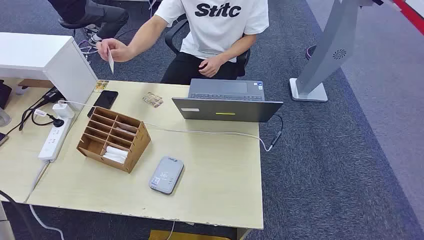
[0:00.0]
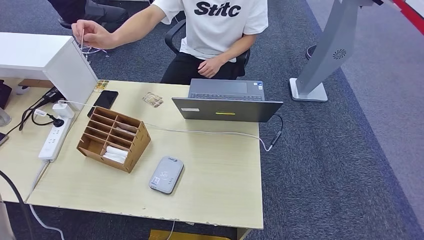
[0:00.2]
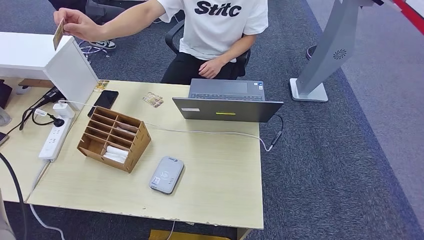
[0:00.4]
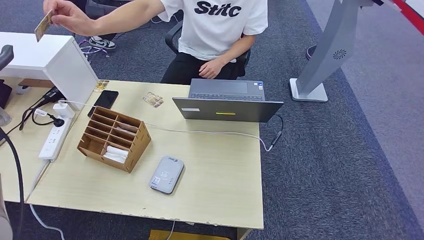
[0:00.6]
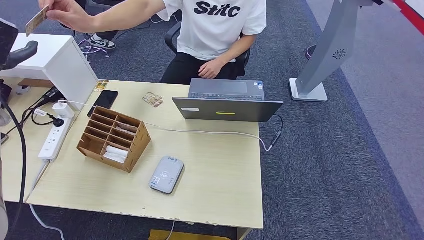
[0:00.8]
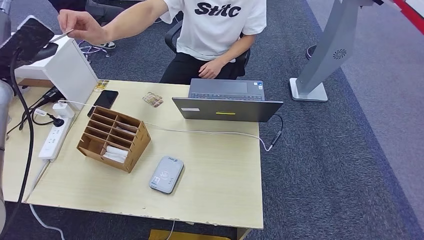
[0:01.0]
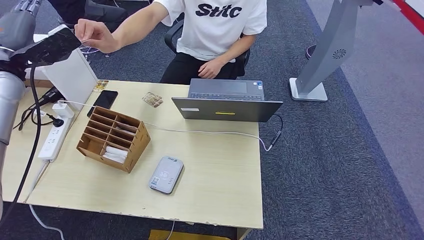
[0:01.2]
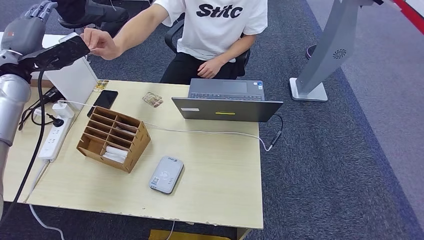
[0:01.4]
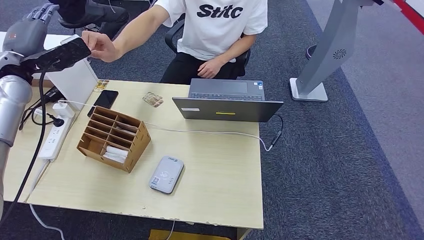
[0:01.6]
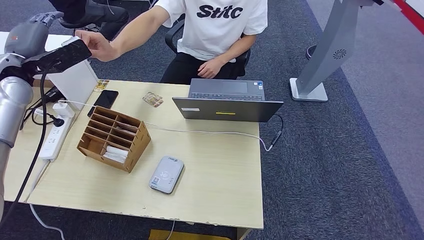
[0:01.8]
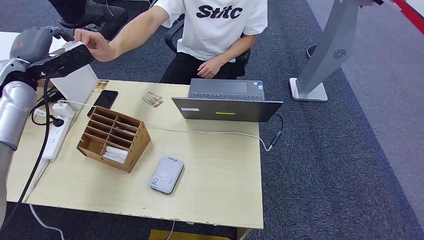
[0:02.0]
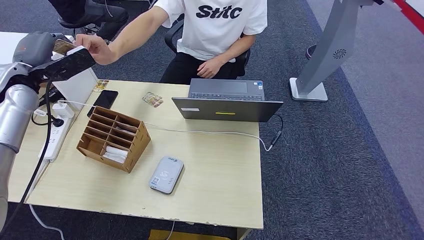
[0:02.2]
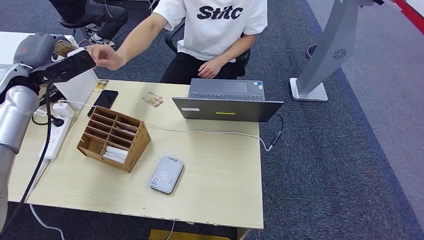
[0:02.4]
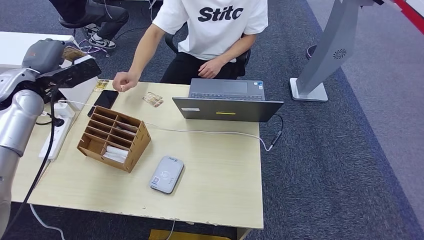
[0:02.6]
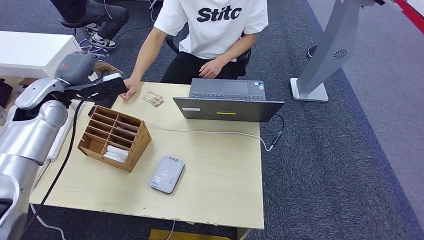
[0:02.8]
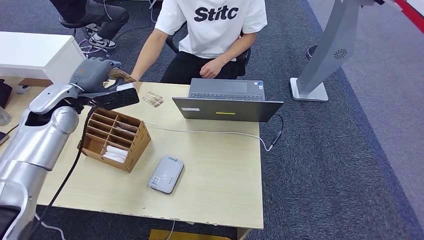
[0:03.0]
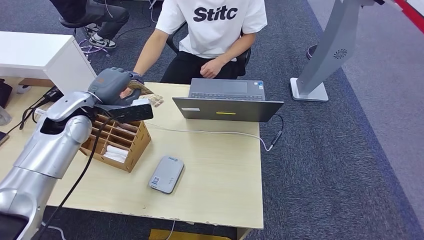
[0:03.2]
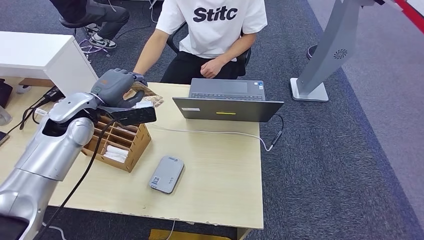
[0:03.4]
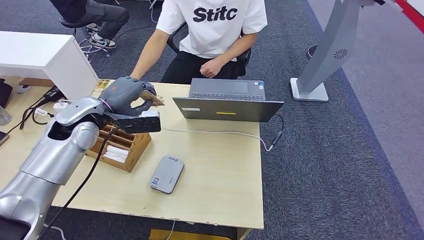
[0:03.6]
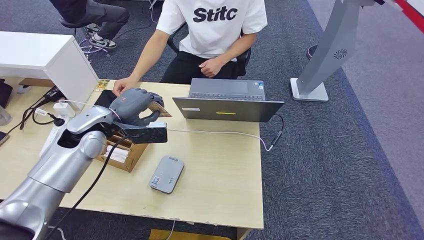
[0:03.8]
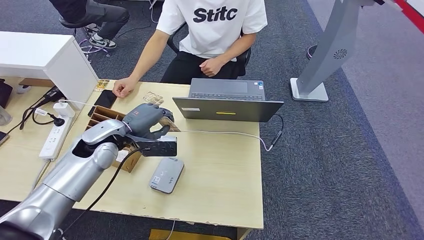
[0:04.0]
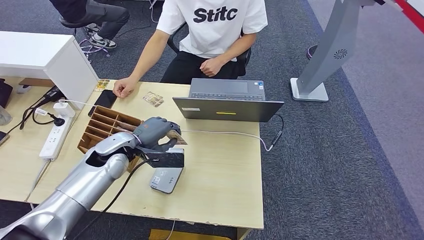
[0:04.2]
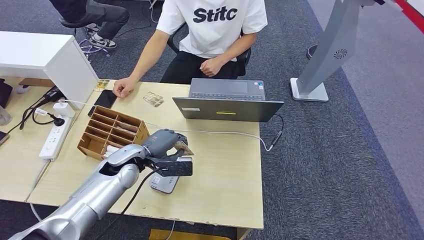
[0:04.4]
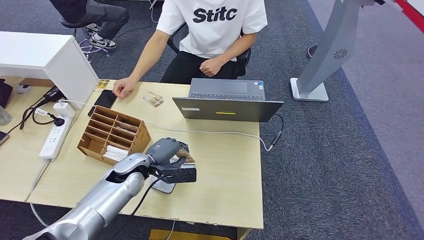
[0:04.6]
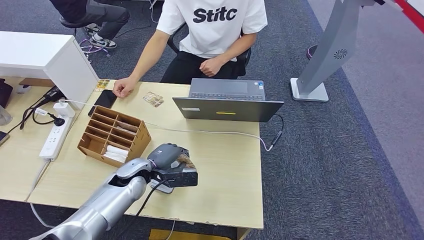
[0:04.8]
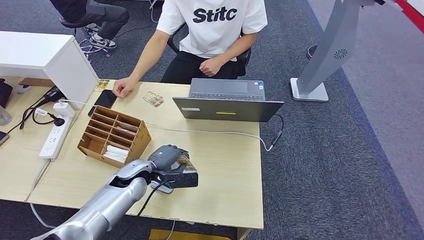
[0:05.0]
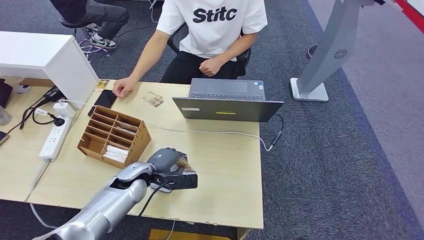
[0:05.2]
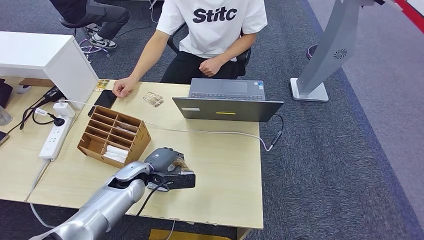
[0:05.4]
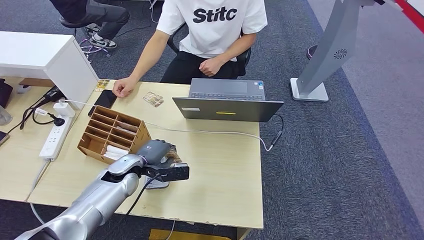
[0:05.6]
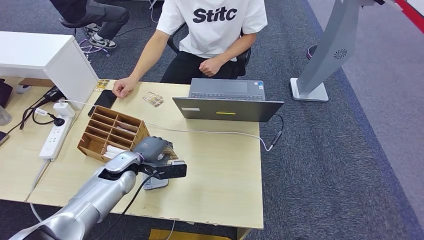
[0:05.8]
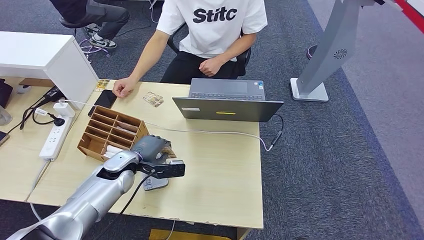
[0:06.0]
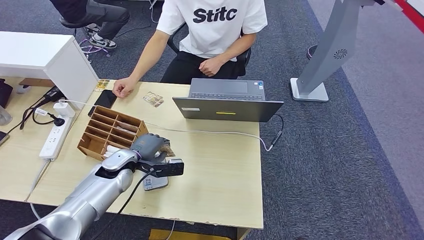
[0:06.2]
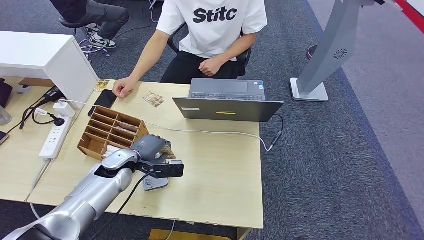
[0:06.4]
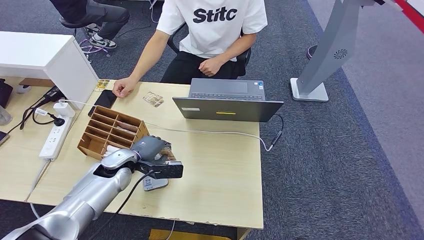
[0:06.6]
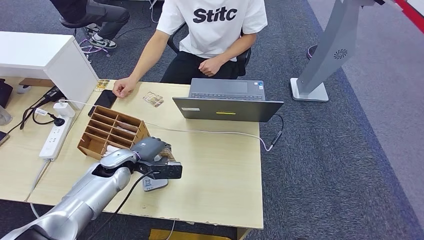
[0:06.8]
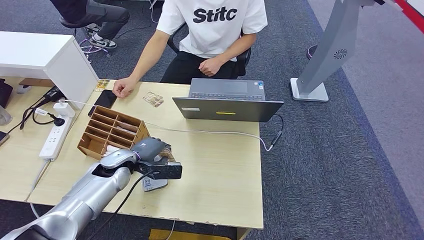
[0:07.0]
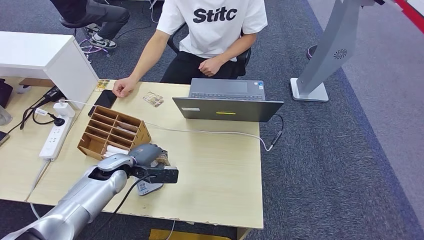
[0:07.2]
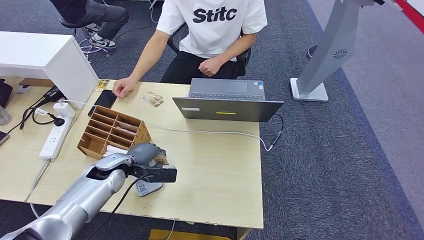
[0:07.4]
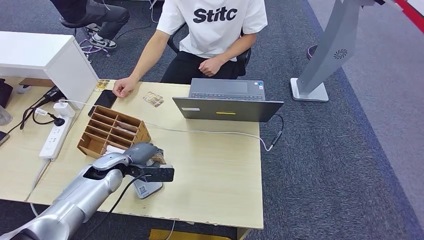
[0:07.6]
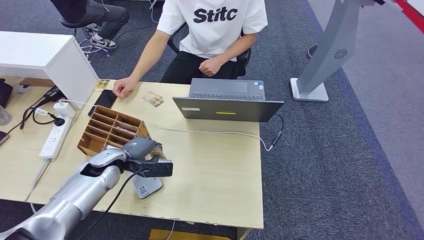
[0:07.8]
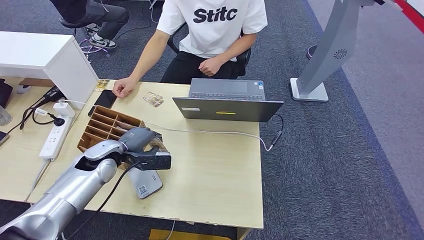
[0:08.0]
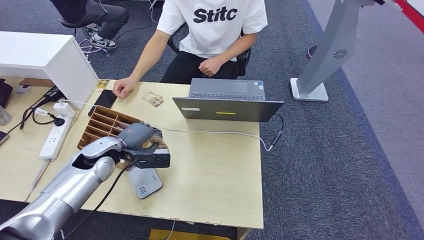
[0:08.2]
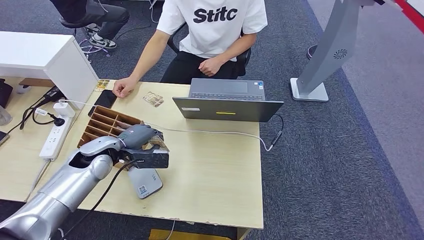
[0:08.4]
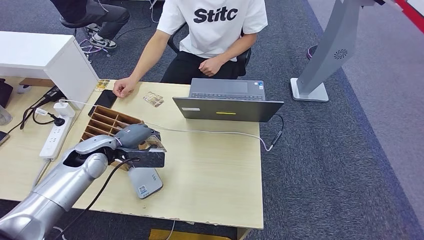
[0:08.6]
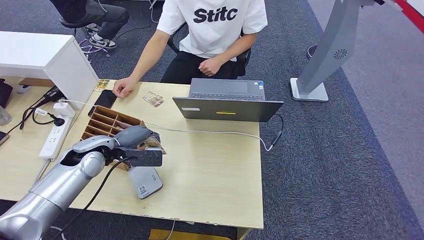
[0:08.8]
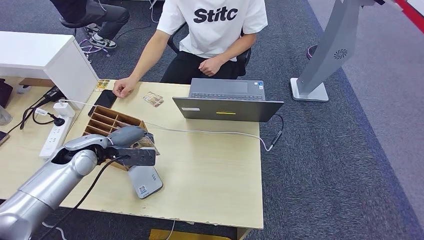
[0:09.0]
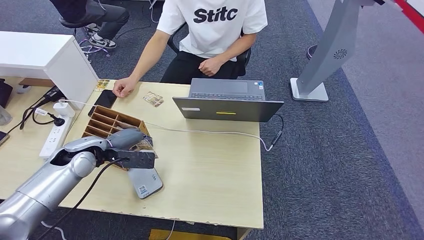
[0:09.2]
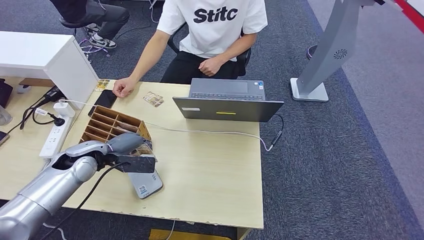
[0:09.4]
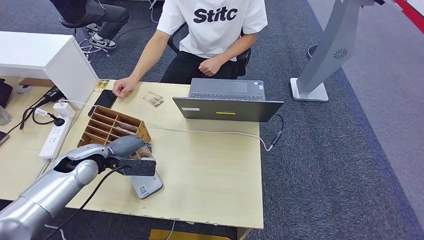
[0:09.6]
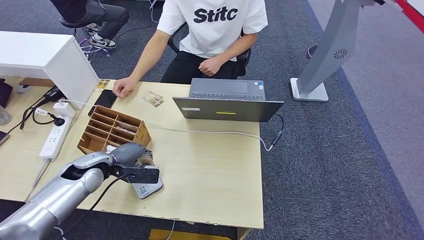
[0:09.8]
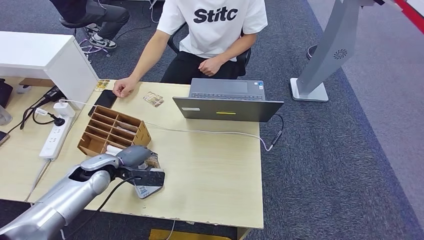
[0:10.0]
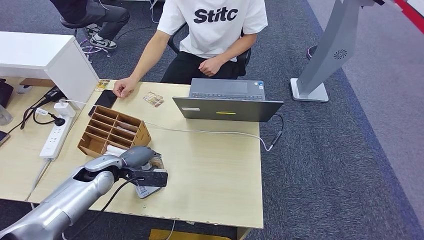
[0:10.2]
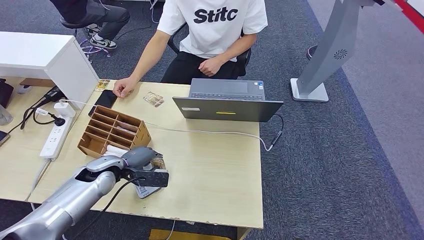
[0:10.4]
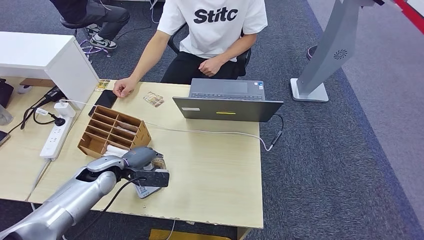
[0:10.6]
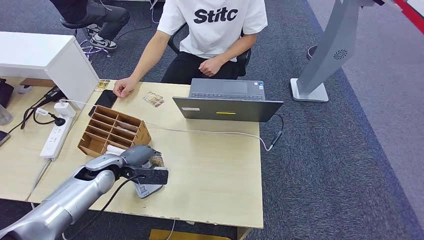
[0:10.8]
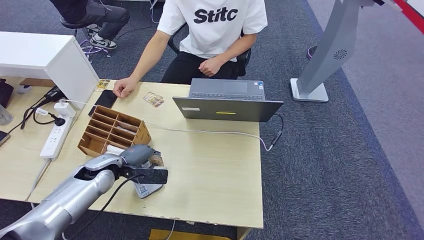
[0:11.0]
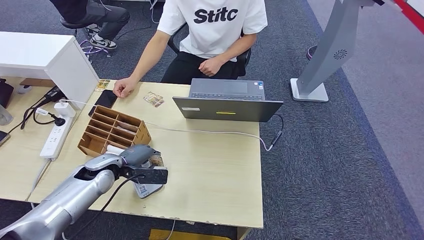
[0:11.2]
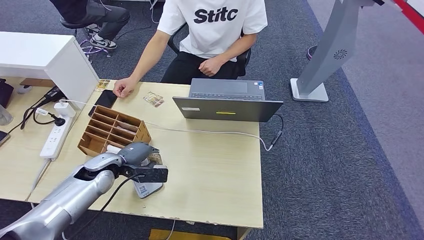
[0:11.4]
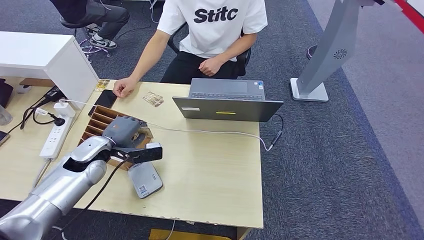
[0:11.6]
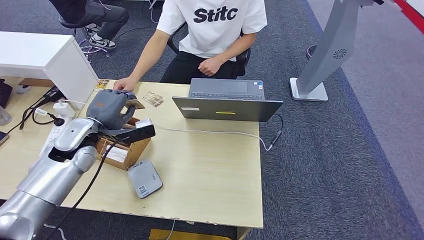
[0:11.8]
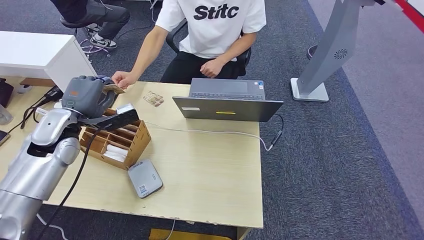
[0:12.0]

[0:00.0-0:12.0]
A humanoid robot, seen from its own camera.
Step, 0:00.0 to 0:03.2: Take the ID card from the person's hand.
Step, 0:03.4 to 0:07.2: Place the ID card on the card reader.
0:03.0 to 0:04.4: The left hand moves downward, to the right and backward, roughly 20 cm.
0:04.4 to 0:06.0: There are only small adjustments of the hands.
0:06.0 to 0:07.6: There are only small adjustments of the hands.
0:07.6 to 0:09.0: The left hand travels upward by roughly 5 cm.
0:09.0 to 0:10.4: The left hand is displaced downward by approximately 5 cm.
0:10.4 to 0:12.0: The left hand moves upward, about 15 cm.

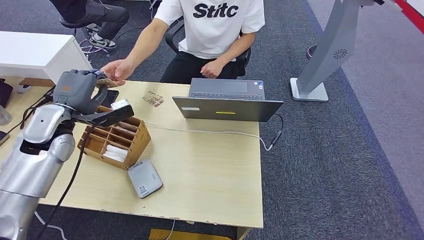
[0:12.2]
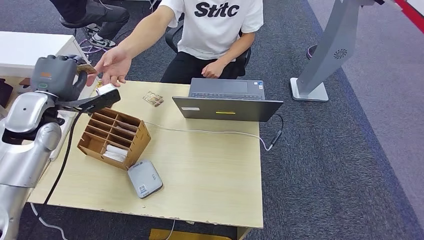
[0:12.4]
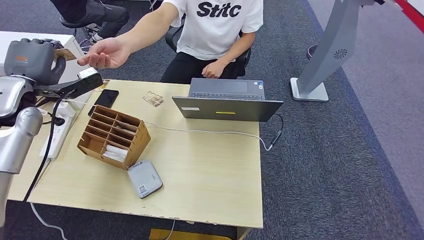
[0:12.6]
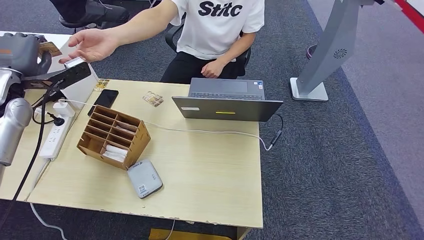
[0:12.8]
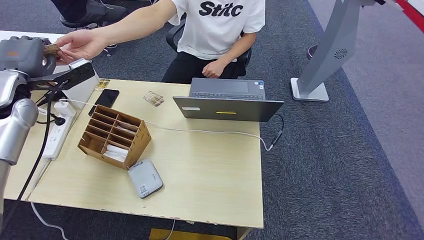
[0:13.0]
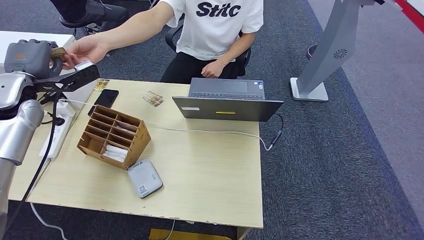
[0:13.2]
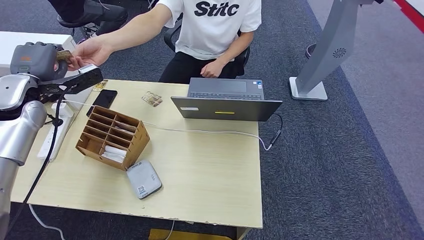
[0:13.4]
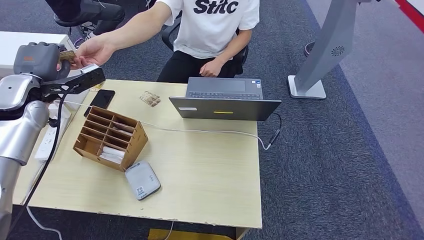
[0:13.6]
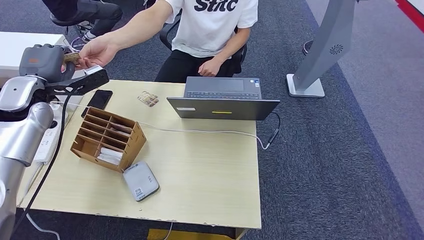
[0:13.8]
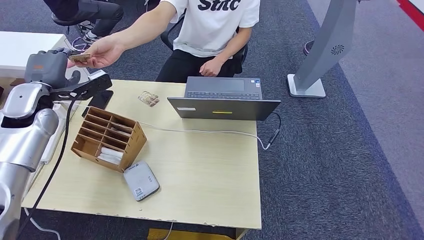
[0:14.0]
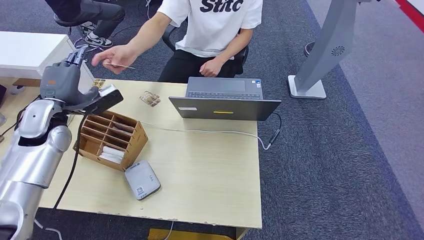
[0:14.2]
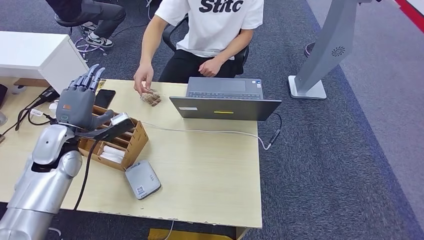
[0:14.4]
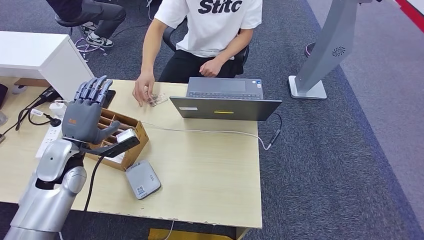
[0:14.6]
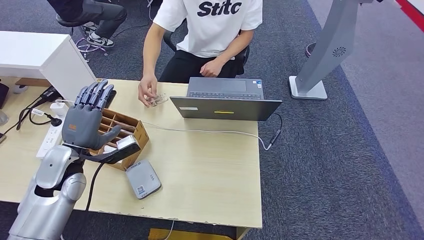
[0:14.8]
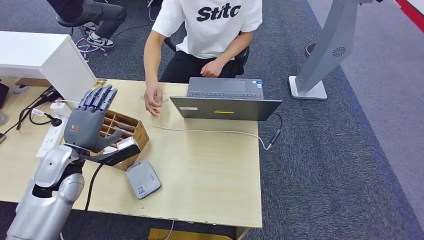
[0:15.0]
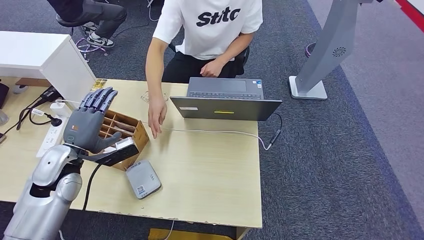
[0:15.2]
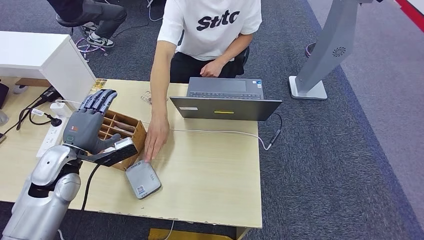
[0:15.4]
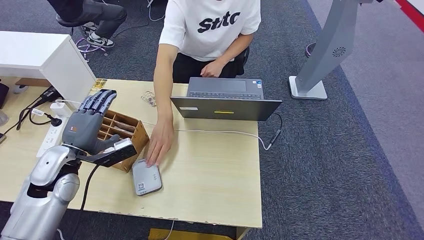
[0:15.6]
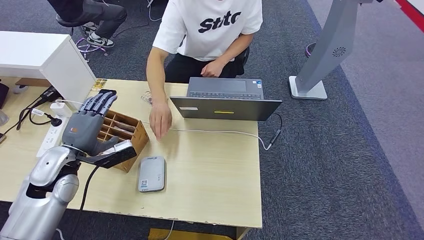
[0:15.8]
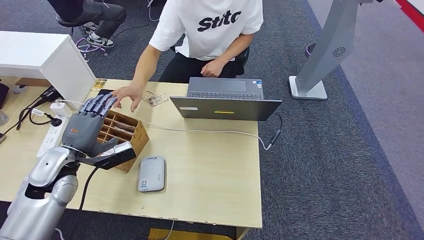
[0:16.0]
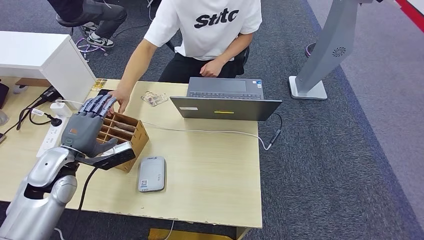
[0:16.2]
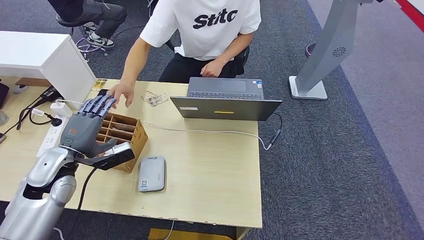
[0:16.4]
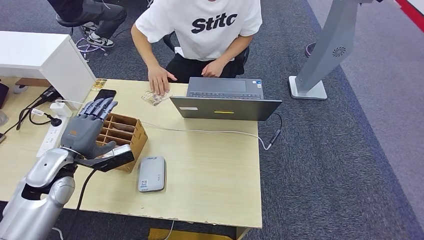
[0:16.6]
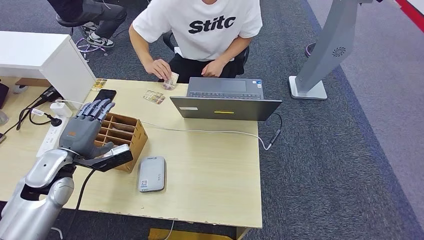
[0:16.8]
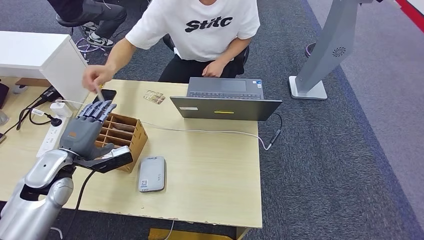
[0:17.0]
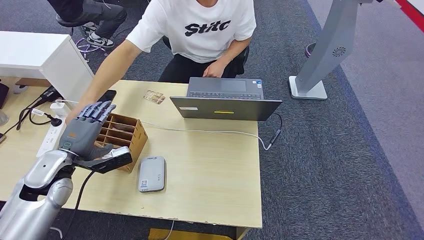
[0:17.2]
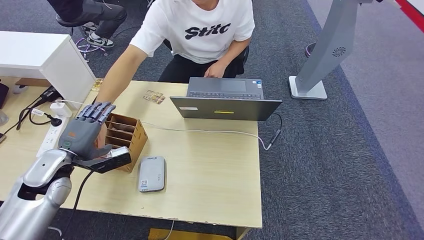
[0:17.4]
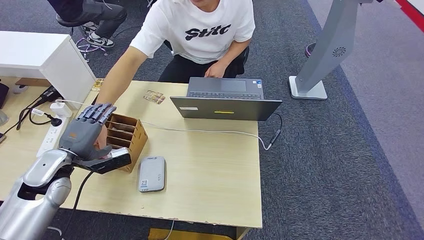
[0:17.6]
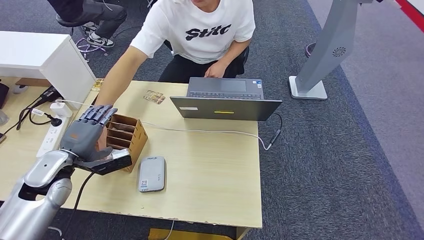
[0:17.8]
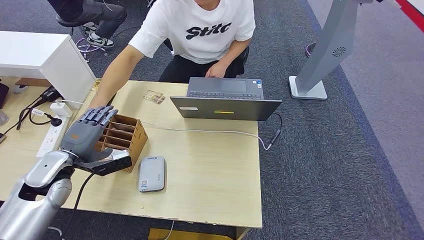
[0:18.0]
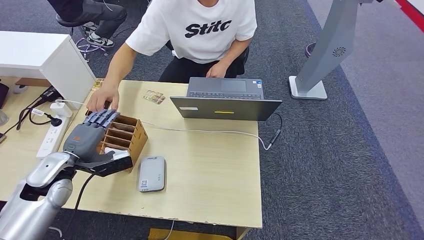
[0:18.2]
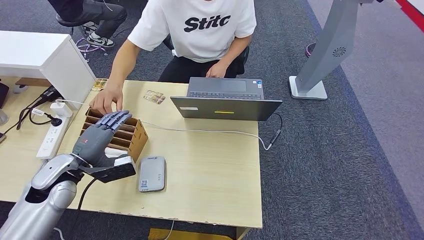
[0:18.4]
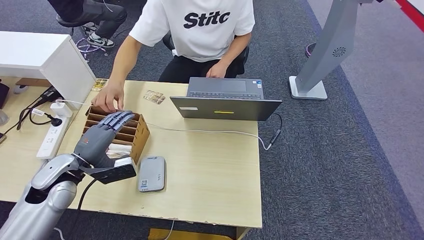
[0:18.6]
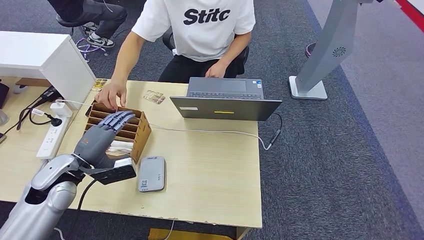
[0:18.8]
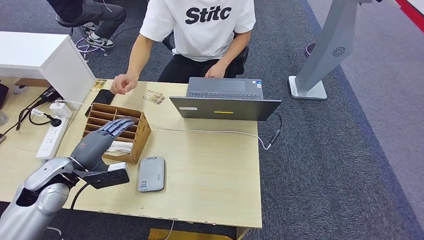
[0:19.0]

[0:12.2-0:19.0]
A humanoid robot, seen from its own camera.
Step, 0:12.2 to 0:14.6: Hand the ID card to the person.
0:15.0 to 0:17.6: The hands stay close to where they were, moving slightly.
